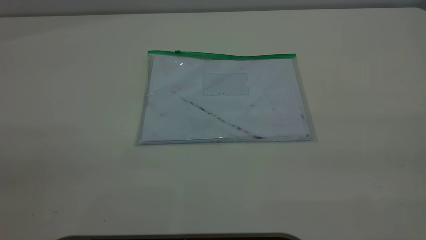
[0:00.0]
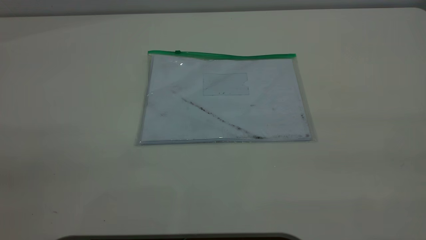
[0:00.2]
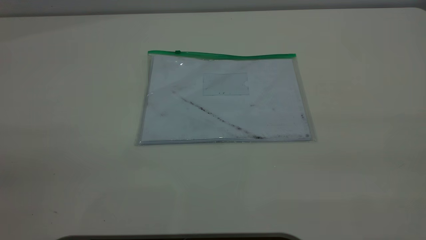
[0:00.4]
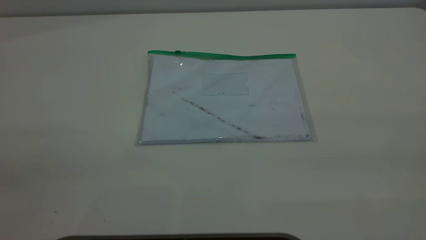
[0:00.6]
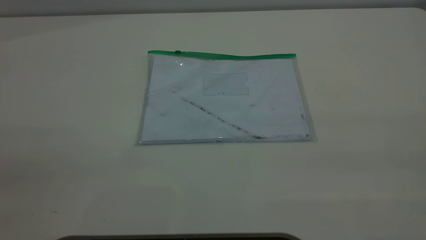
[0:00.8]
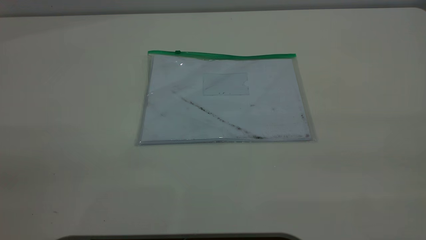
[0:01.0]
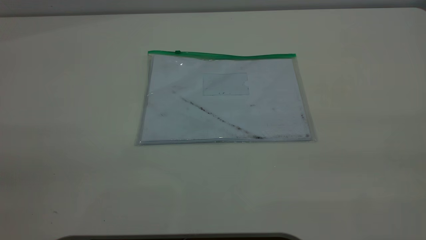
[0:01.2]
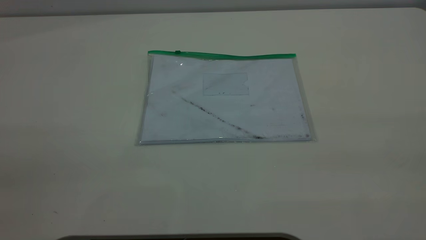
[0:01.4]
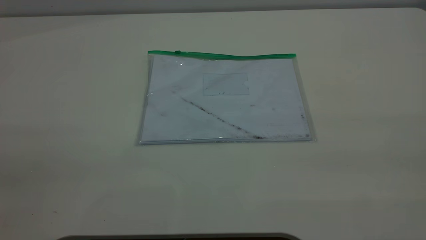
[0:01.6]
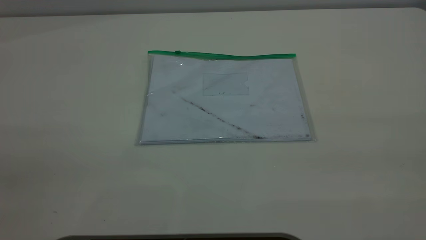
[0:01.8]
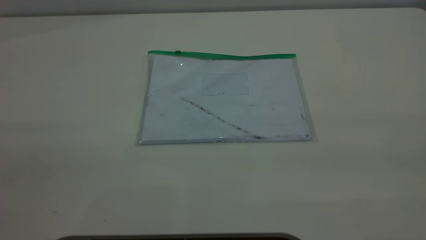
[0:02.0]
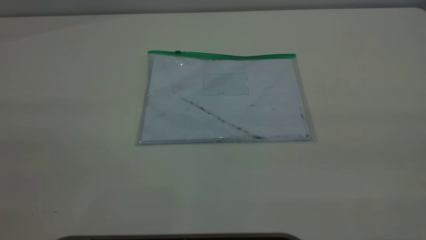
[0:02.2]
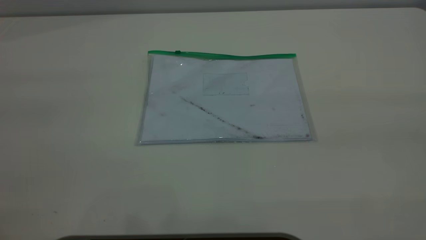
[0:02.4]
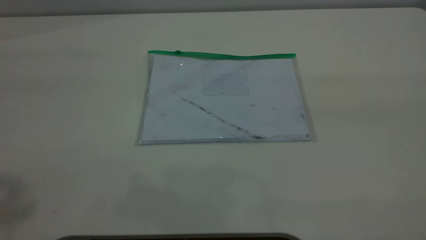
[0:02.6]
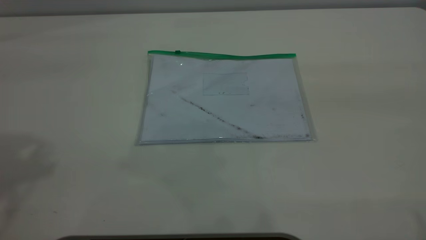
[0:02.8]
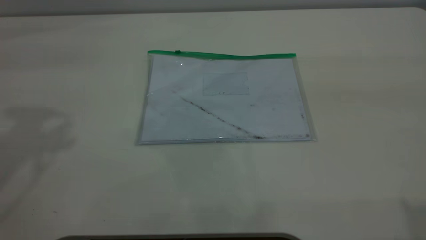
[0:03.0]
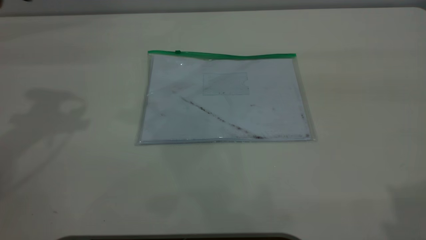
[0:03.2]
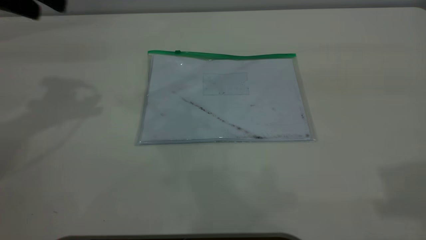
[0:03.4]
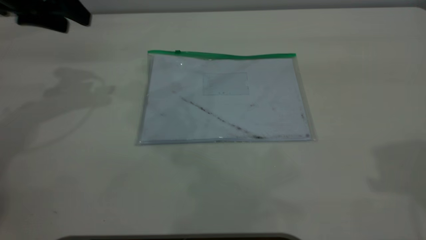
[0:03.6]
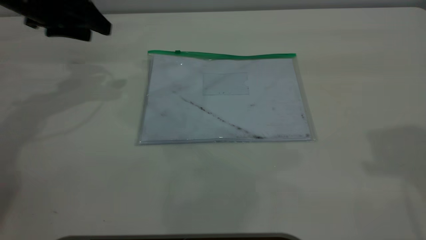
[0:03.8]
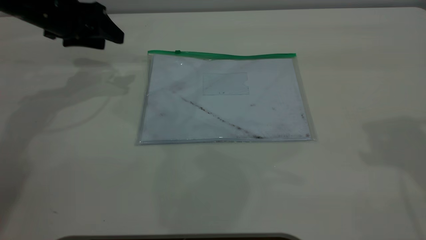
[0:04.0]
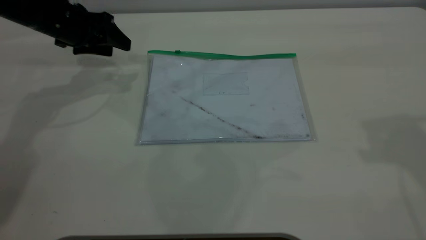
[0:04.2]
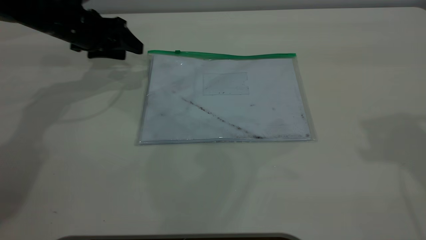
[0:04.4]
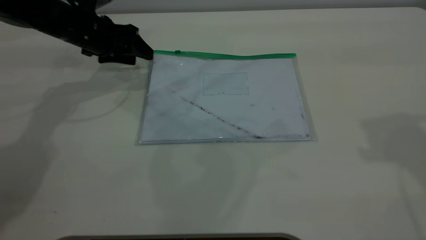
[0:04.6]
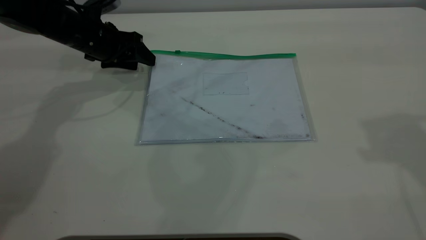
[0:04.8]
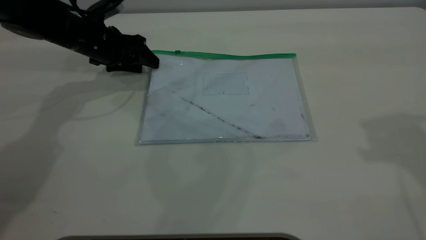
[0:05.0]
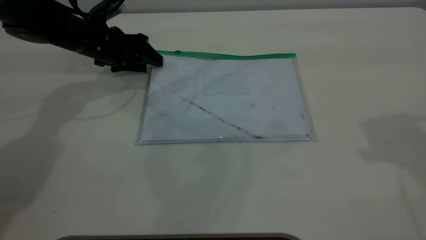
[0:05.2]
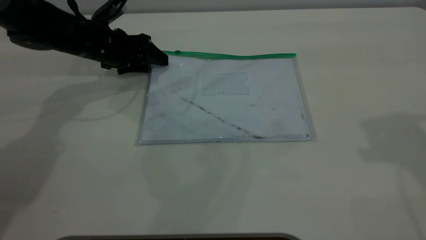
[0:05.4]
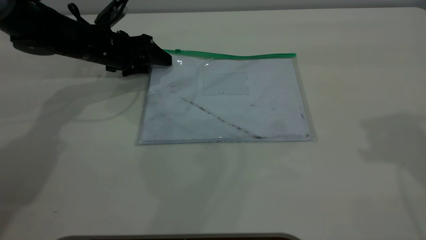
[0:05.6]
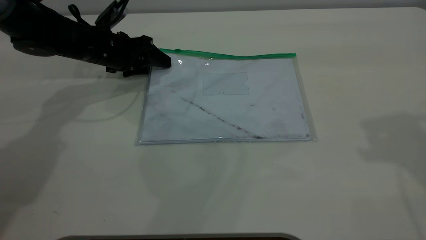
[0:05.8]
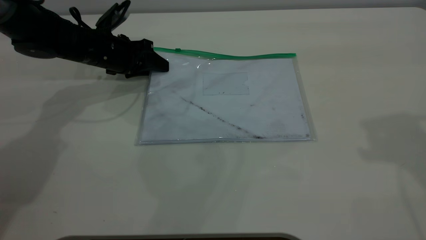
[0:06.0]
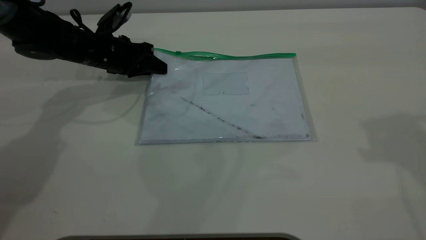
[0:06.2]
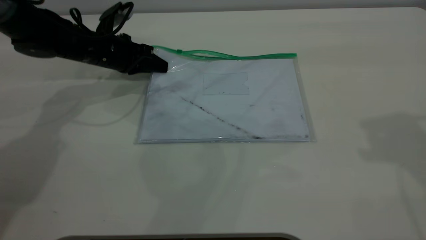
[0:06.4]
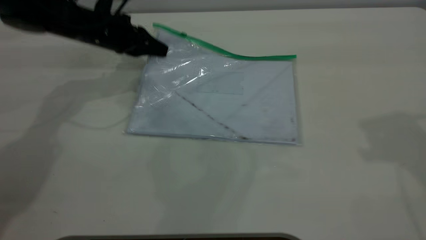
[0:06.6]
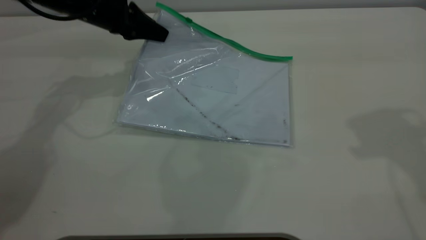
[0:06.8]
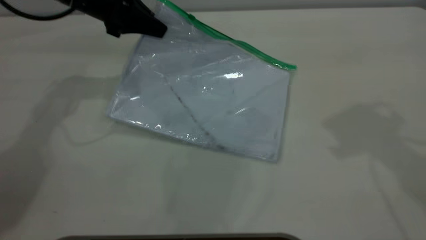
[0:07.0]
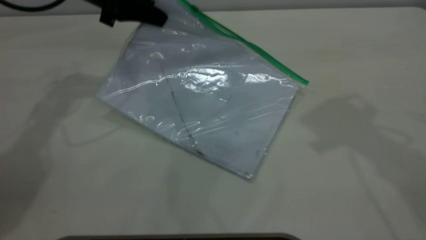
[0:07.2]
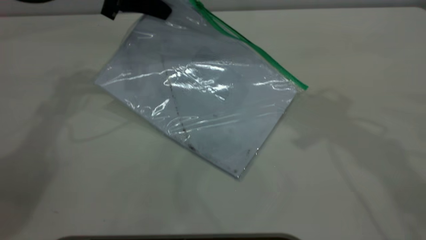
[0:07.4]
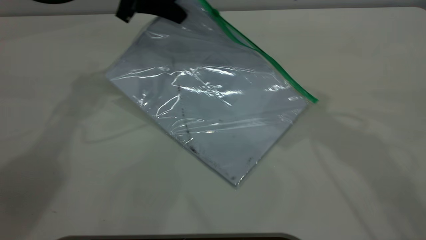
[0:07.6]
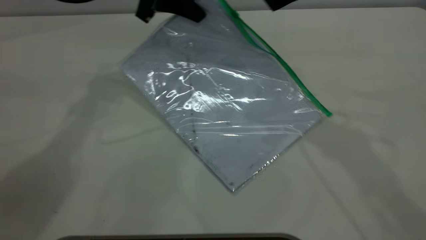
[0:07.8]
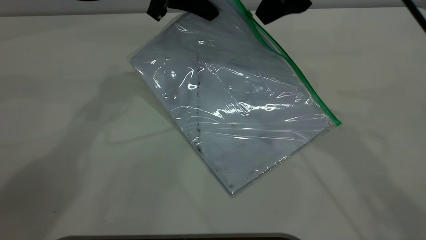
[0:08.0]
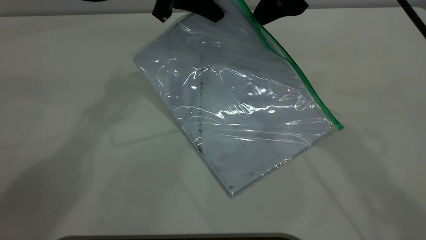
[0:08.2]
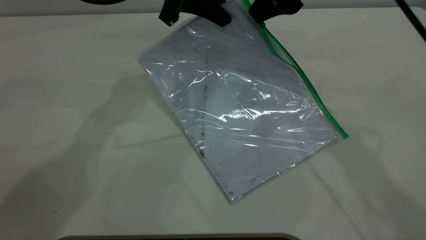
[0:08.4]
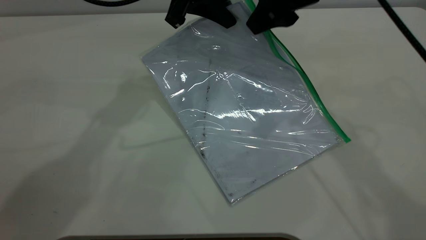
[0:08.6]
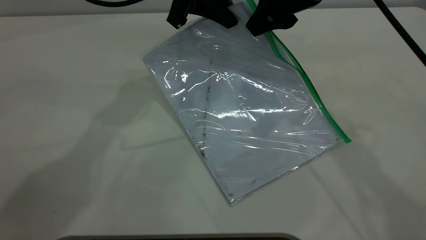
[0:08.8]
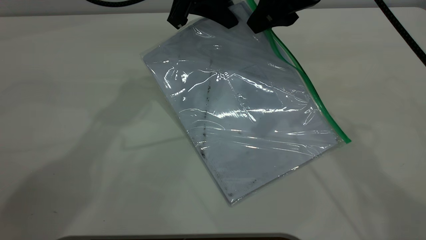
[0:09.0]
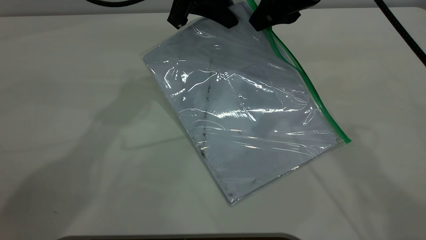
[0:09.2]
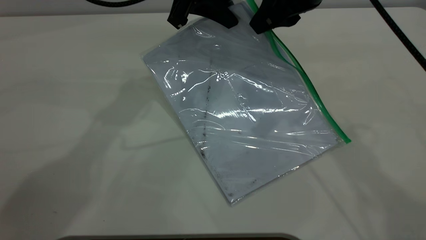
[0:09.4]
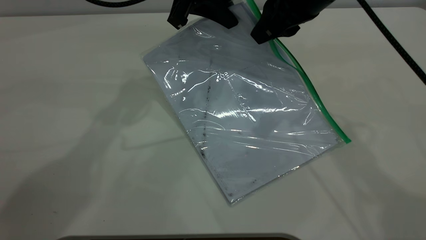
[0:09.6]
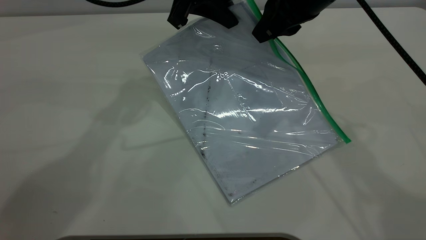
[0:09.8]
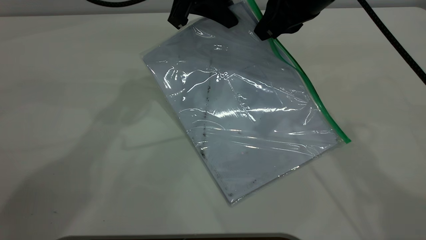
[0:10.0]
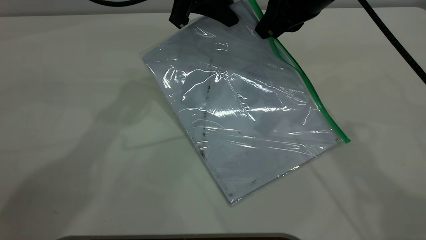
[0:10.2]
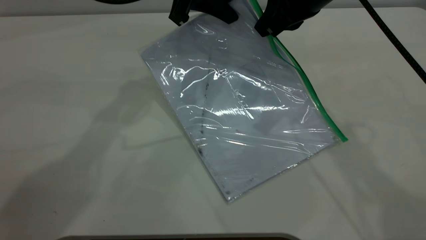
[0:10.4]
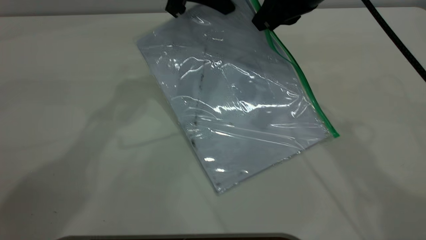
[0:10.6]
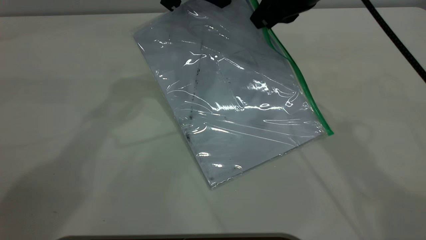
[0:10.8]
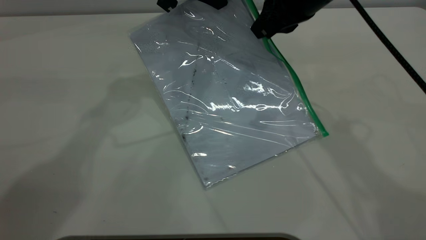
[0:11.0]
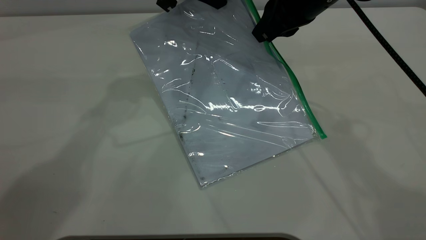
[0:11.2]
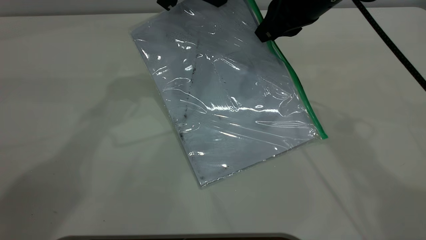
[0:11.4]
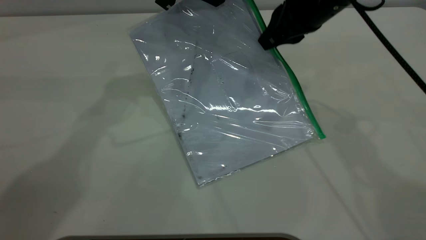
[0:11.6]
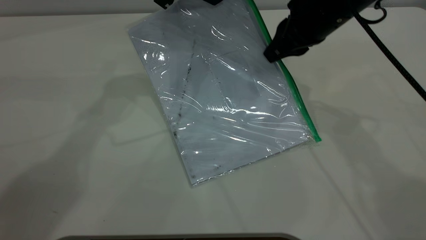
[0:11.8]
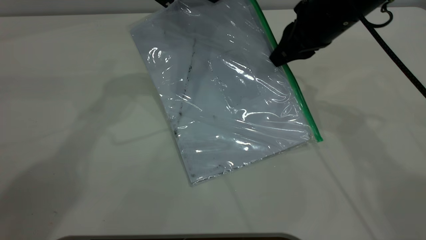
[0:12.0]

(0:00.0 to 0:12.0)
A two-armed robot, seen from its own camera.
Step, 0:00.0 - 0:06.4: Pick up the transparent plastic bag with the left gripper.
0:00.0 - 0:01.6: Both grippers stay put.
0:03.0 - 0:04.4: The left gripper travels downward and forward by roughly 30 cm.
0:04.4 - 0:06.0: The left gripper shifts some 5 cm downward, and closes its fingers.
0:06.0 - 0:07.6: The left gripper heads upward and to the right, covering some 20 cm, and closes its fingers; the right gripper heads to the left, forward and downward, covering some 15 cm.
0:07.6 - 0:09.0: The left gripper travels to the right by roughly 10 cm, while the right gripper travels downward by about 5 cm.
0:09.0 - 0:10.4: The right gripper closes.
0:10.4 - 0:12.0: The right gripper is displaced downward by approximately 5 cm.

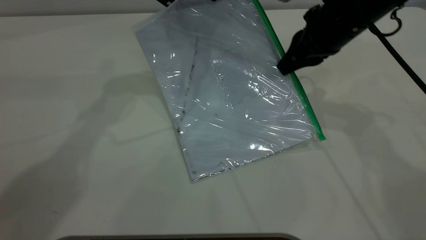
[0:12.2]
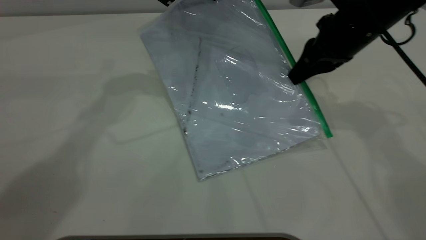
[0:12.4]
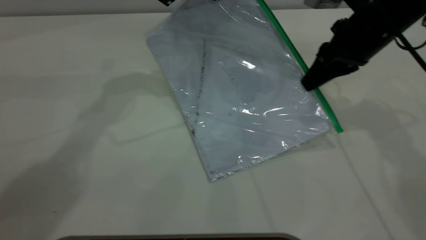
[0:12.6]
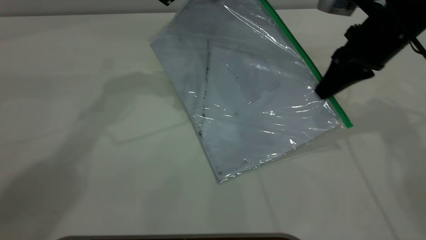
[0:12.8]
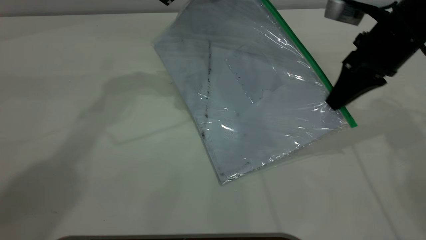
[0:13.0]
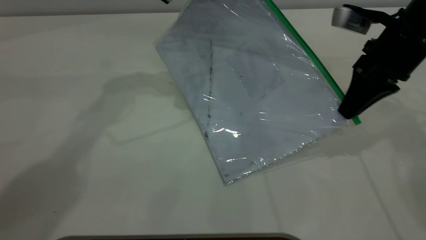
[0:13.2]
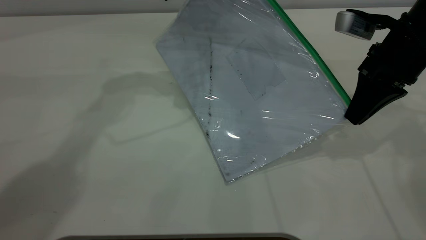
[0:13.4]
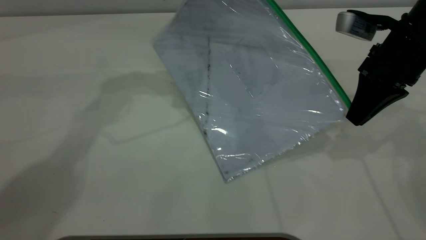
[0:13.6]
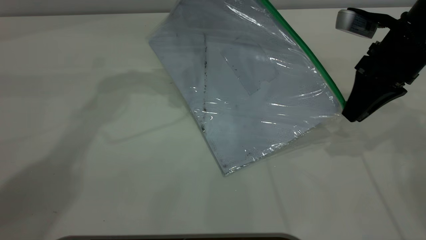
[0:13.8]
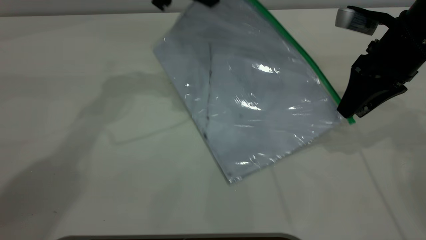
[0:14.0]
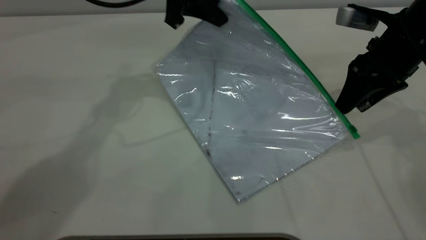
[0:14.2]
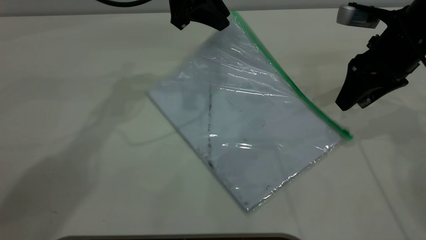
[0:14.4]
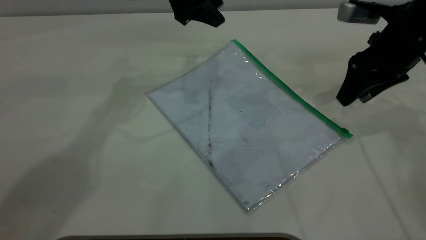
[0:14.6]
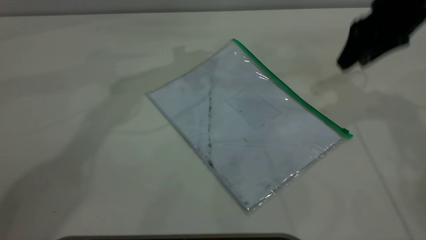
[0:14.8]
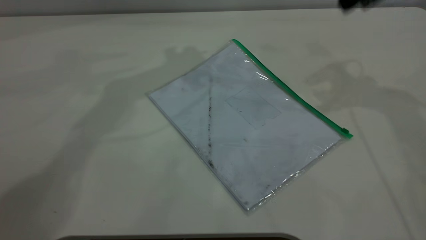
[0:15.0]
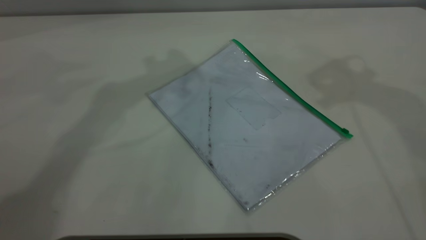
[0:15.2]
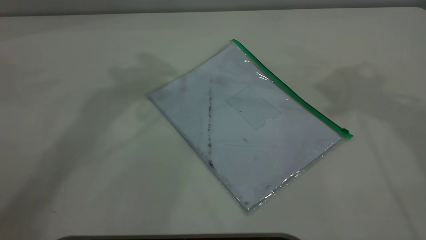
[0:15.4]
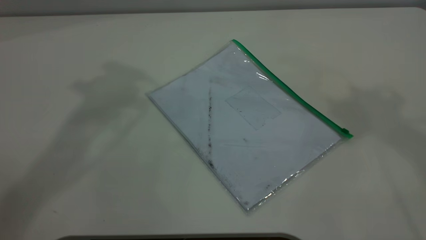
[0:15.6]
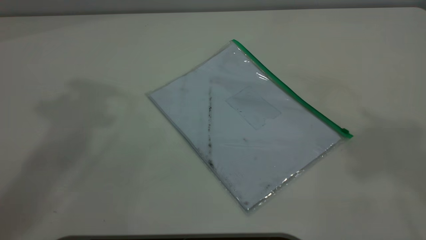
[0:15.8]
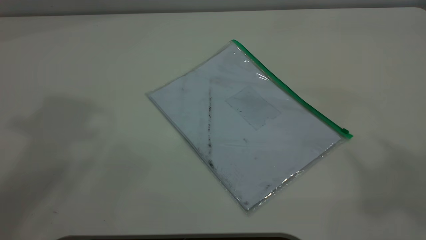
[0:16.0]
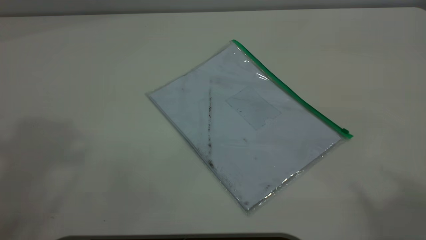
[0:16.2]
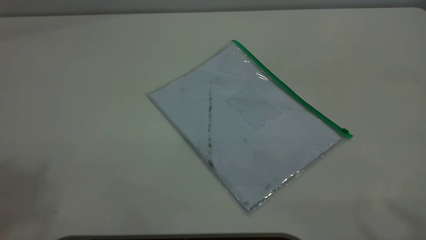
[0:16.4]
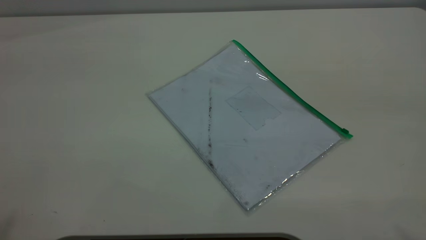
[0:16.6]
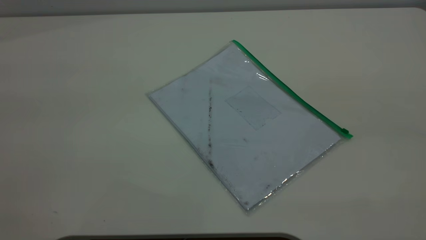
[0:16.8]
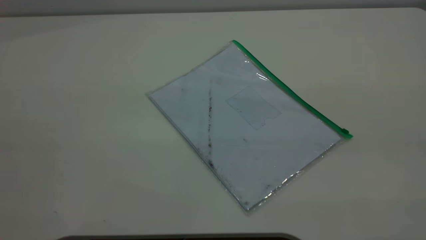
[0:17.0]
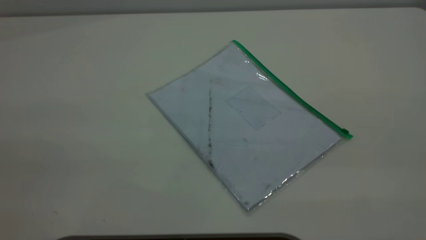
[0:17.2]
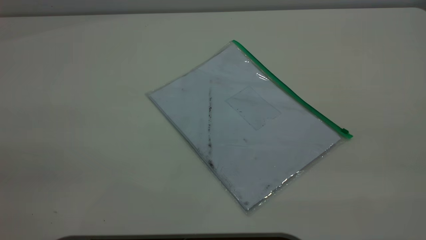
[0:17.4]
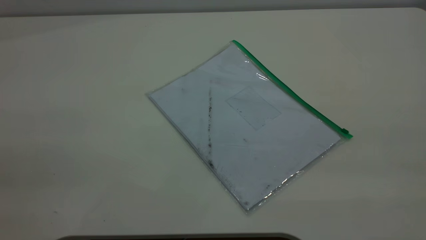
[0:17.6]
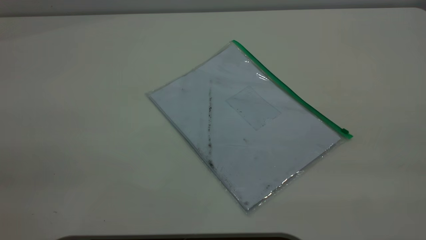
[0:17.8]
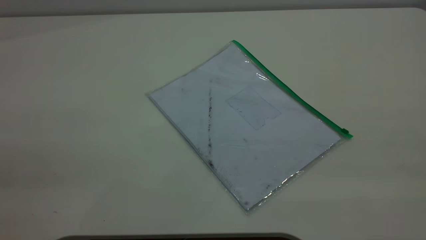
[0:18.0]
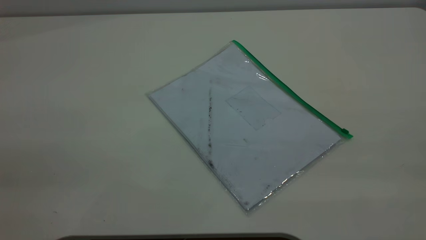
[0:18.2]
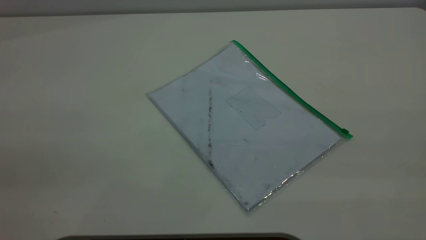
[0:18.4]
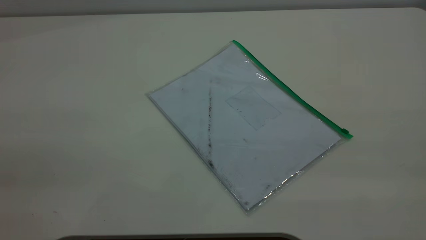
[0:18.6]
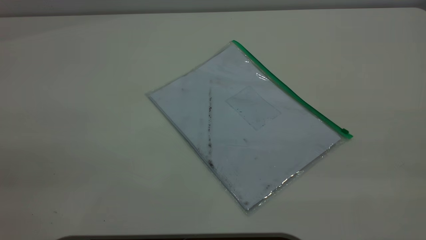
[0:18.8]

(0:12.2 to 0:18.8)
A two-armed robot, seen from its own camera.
Step, 0:12.2 - 0:14.2: Pulling up the zipper on the transparent plastic bag with the right gripper to close it.
0:12.2 - 0:13.8: The right gripper is displaced to the right by about 5 cm, and opens up.
0:13.8 - 0:15.4: The right gripper is displaced upward by roughly 30 cm, and opens its fingers; the left gripper heads upward, covering about 15 cm, and opens.
